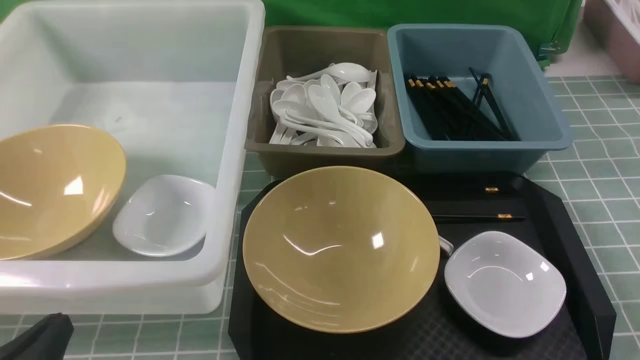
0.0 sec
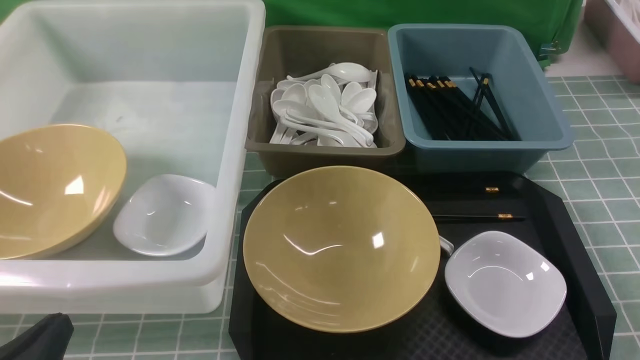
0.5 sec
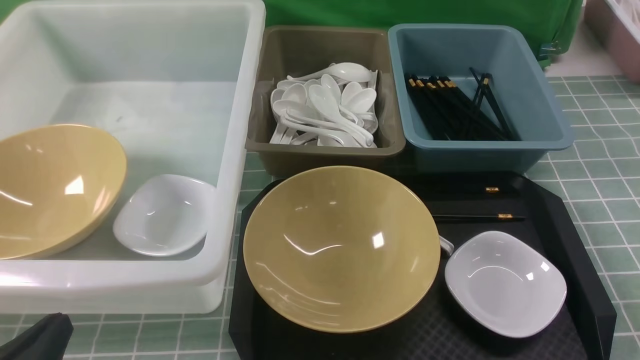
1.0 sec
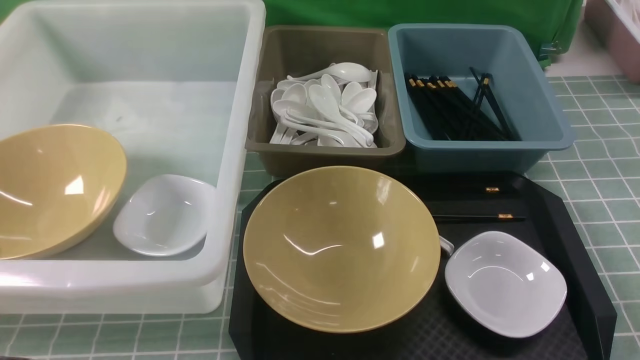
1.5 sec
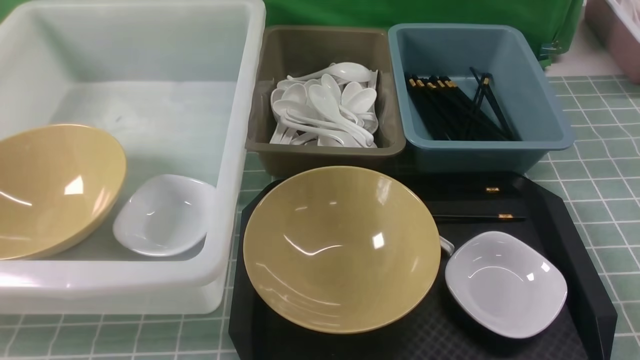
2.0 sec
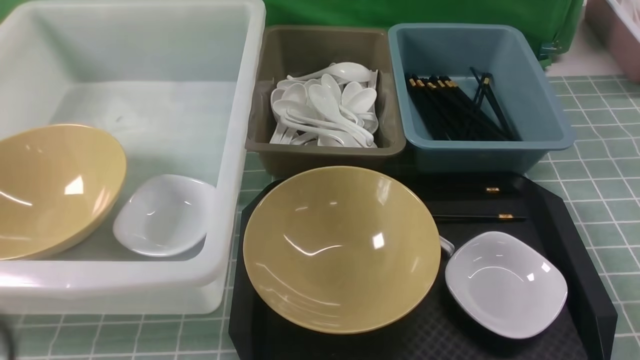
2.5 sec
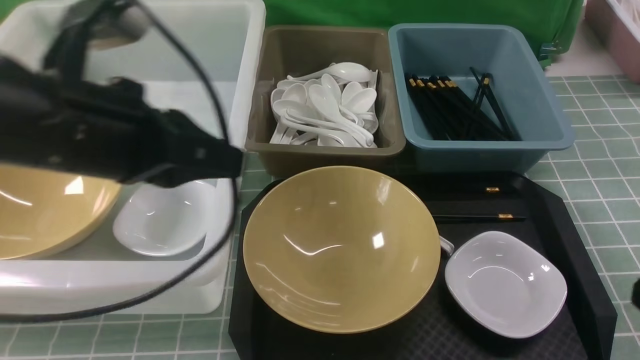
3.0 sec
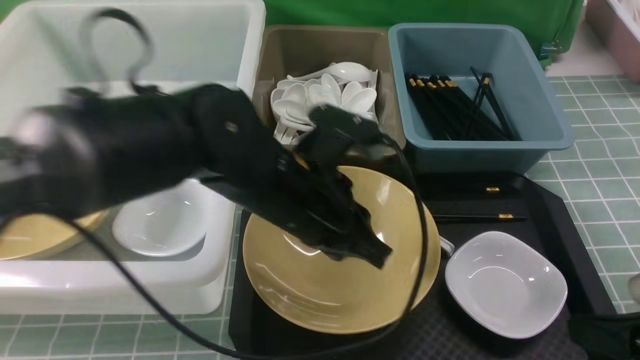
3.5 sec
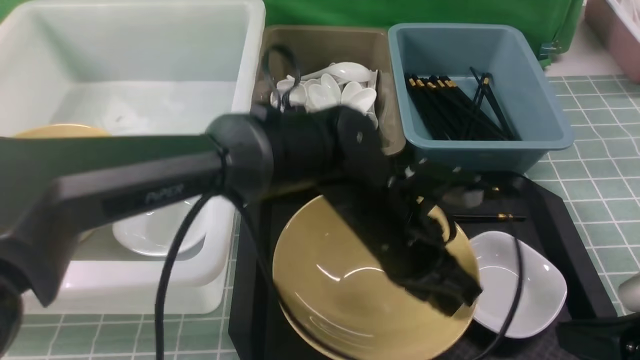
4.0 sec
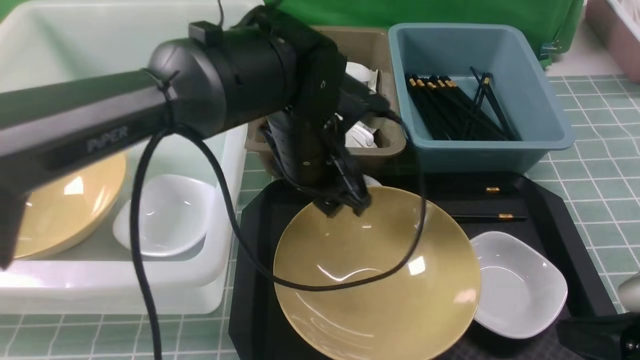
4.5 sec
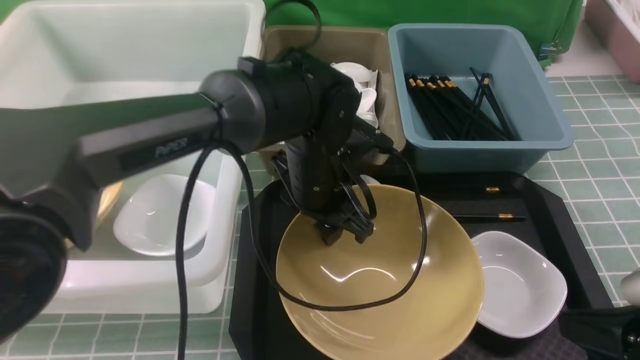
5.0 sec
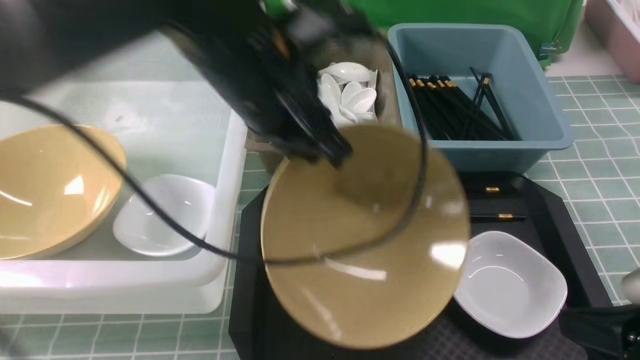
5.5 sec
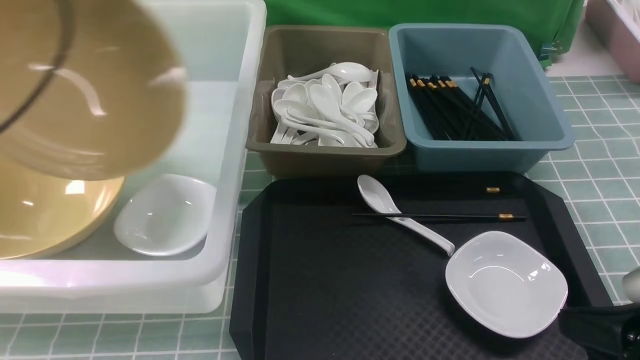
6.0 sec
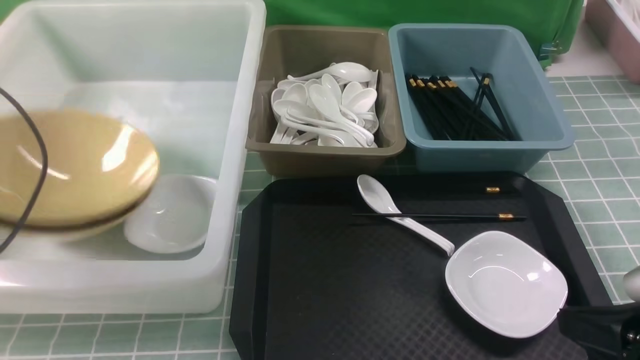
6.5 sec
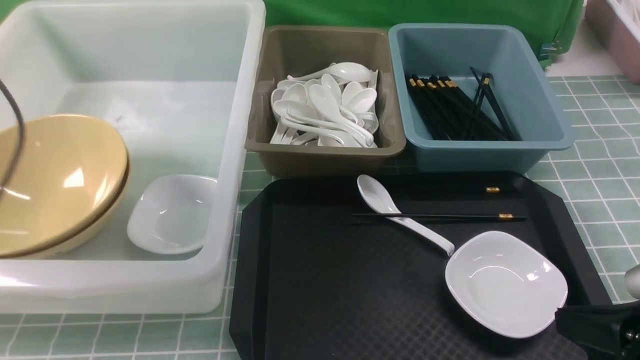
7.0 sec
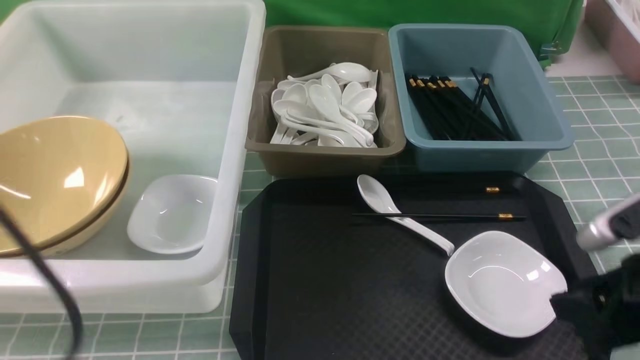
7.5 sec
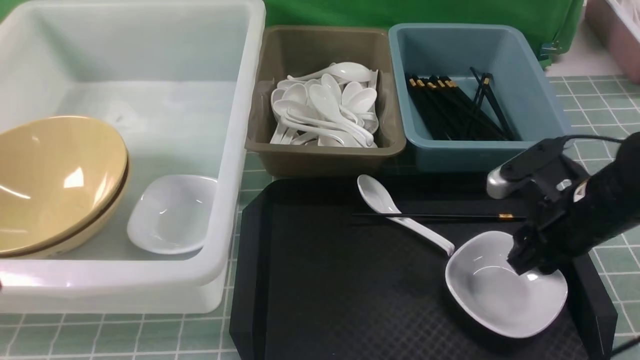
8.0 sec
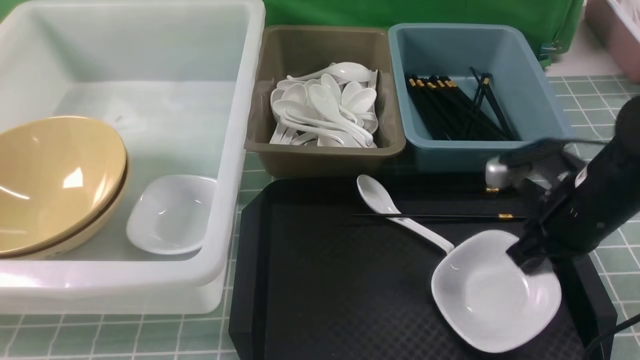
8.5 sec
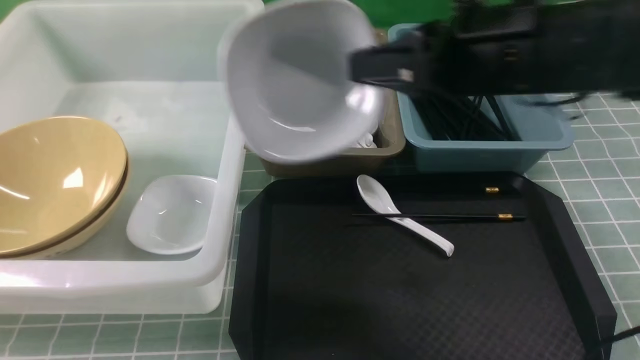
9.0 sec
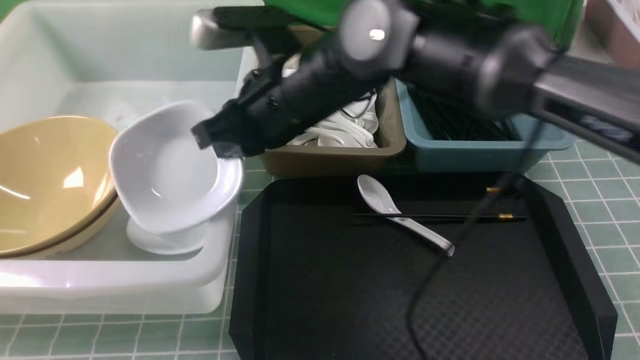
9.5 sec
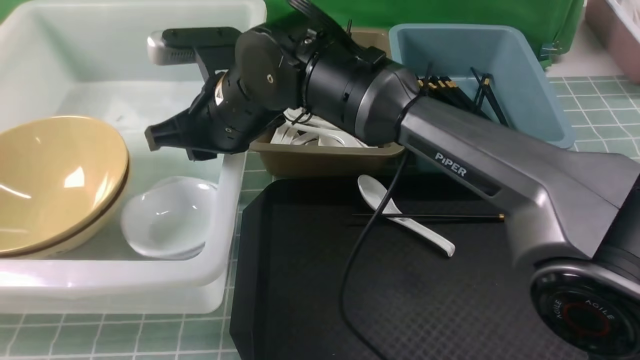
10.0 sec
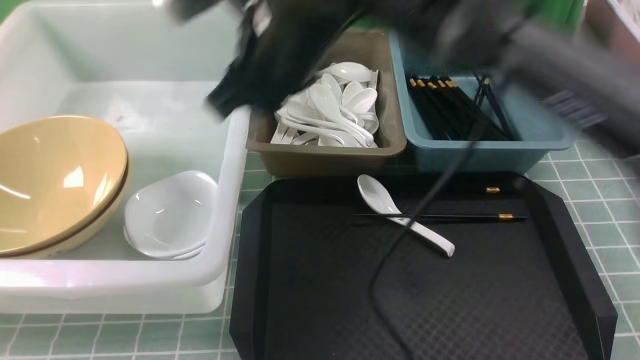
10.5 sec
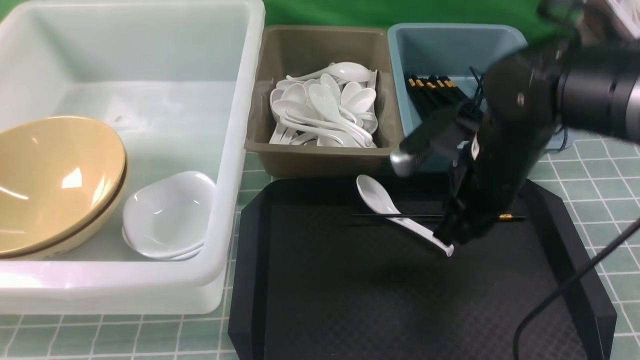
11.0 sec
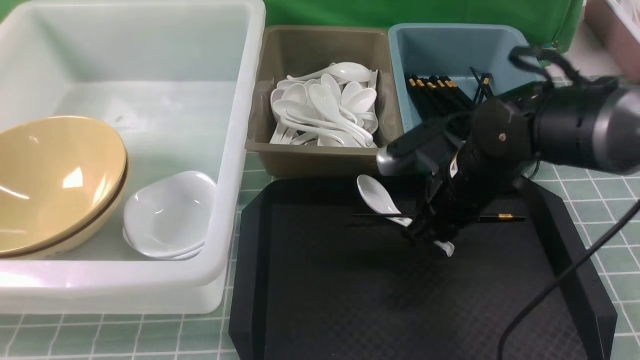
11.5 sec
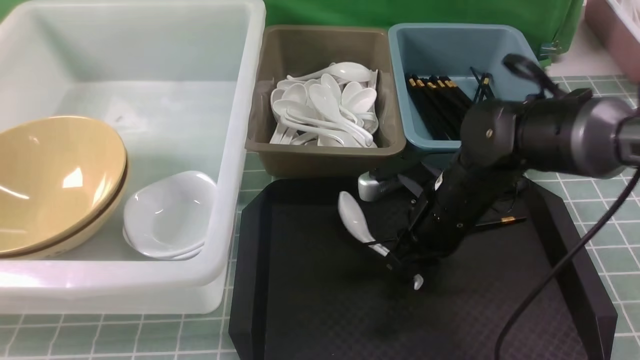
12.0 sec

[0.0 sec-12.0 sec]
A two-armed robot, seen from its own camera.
Task of the whole recording: on blue table put chopsticks spoon bowls plates into blue grey white boxes.
Step, 0.0 sec to 5.0 sec: use the left arm to grab the yellow noodle bowl on the left.
Step, 5.5 sec to 7.0 sec: use the left arm to put the noodle bowl into the large storage box on the left.
Step, 7.5 sec to 8.5 sec: use the right arm to grab the plate.
Step, 9.0 sec to 10.5 sec: use the right arm to put the plate into the large storage box on the left.
0.0 sec to 2.0 sec: The left gripper travels upward by some 15 cm.
2.0 sec to 4.0 sec: The right gripper is displaced forward and downward by some 15 cm. The left gripper shifts approximately 40 cm to the right and forward.
4.0 sec to 6.0 sec: The left gripper shifts approximately 40 cm to the left and upward, and opens and closes again.
6.0 sec to 8.0 sec: The right gripper goes some 15 cm forward, and opens its fingers, while the left gripper moves backward and downward, about 25 cm, and opens, then closes once more.
8.0 sec to 10.0 sec: The right gripper shifts approximately 30 cm to the left, and closes up.
10.0 sec to 12.0 sec: The right gripper travels to the right and downward by roughly 20 cm.

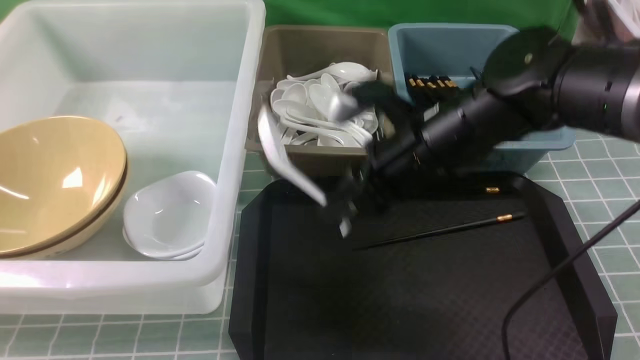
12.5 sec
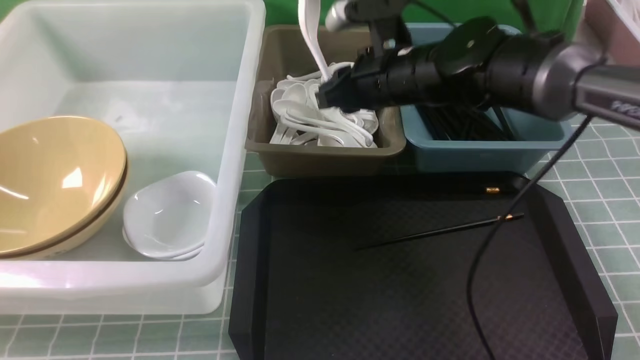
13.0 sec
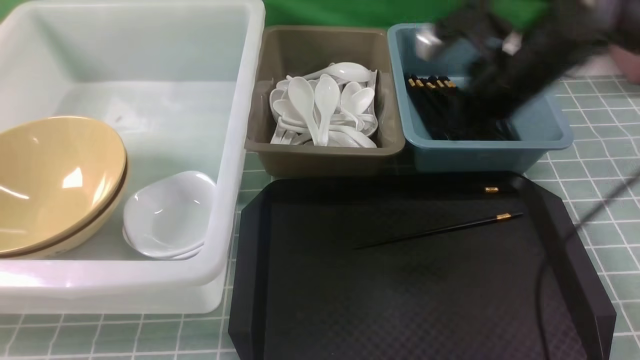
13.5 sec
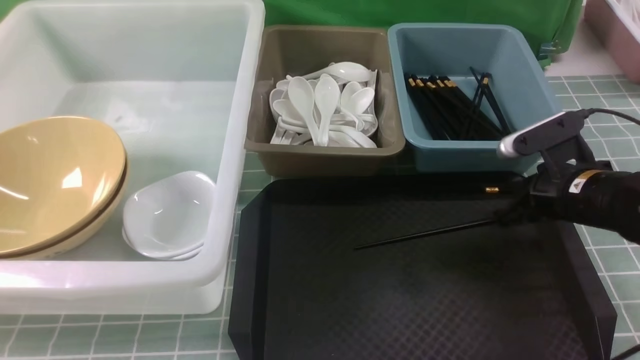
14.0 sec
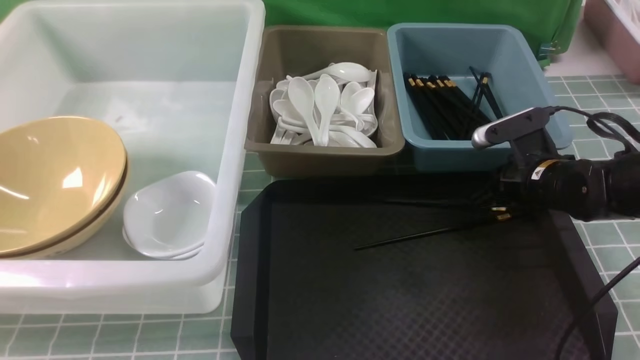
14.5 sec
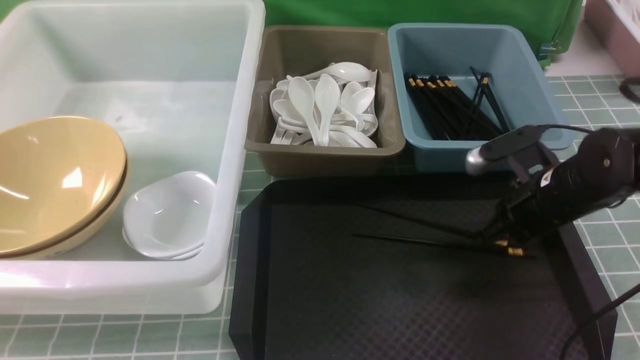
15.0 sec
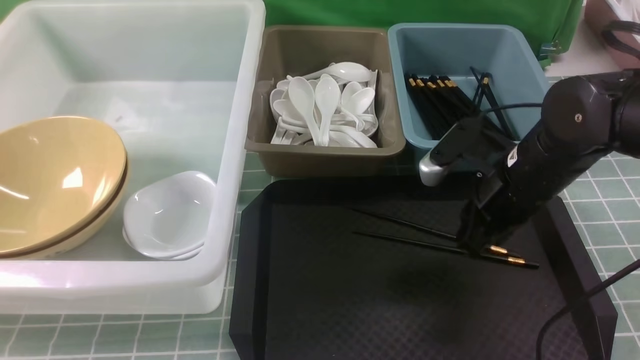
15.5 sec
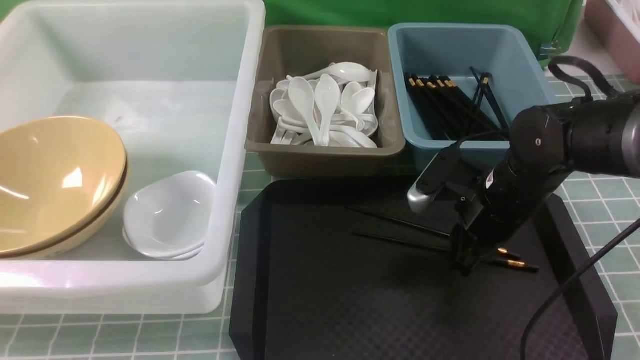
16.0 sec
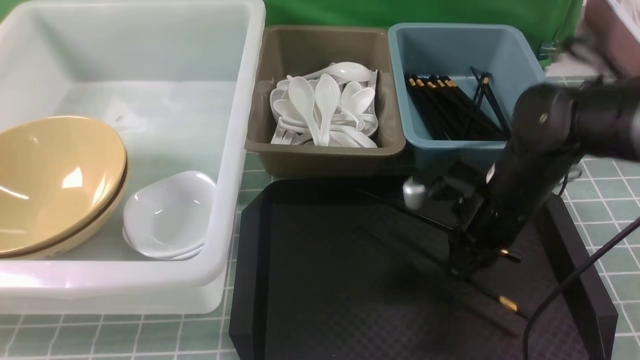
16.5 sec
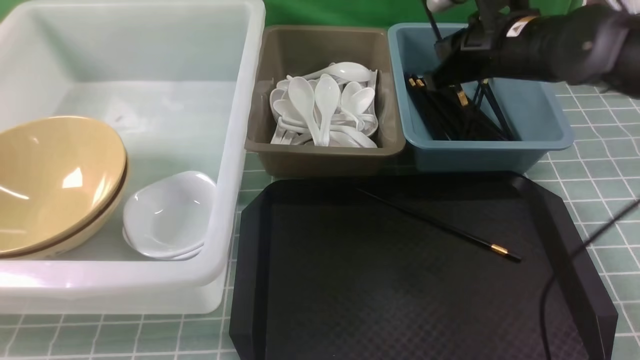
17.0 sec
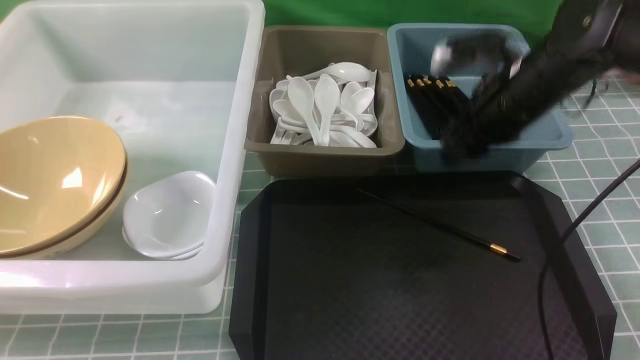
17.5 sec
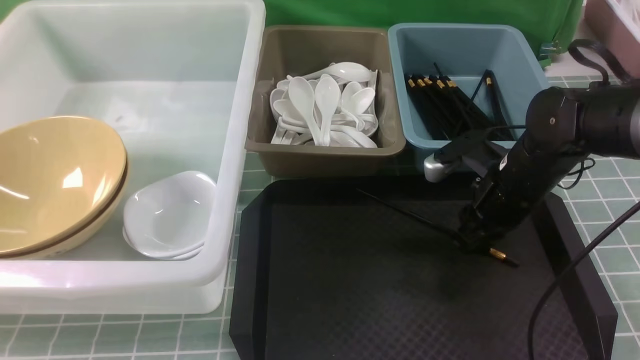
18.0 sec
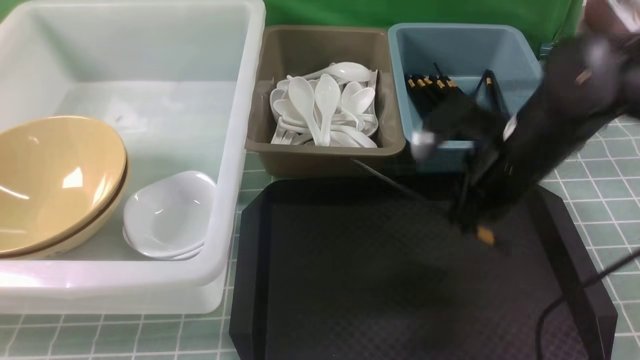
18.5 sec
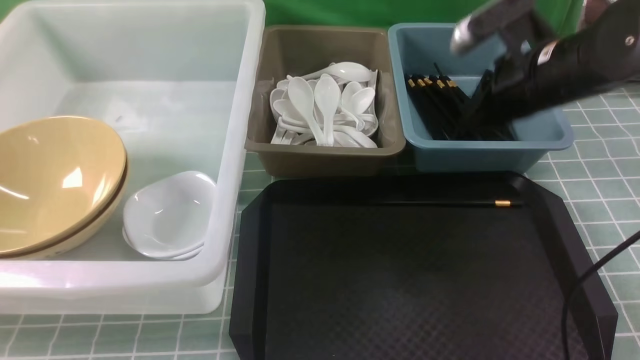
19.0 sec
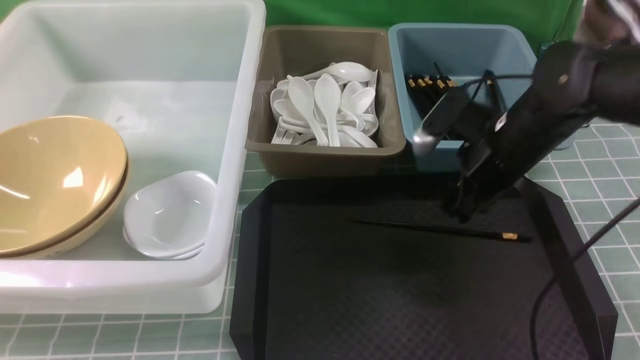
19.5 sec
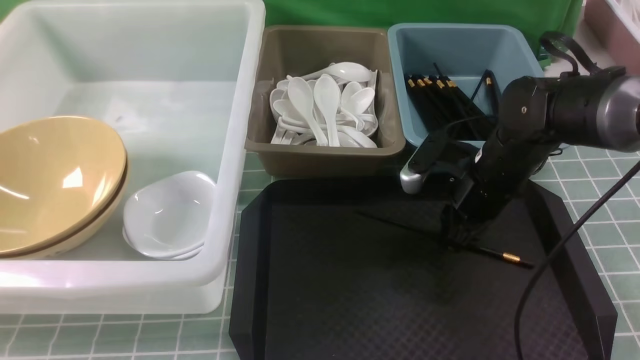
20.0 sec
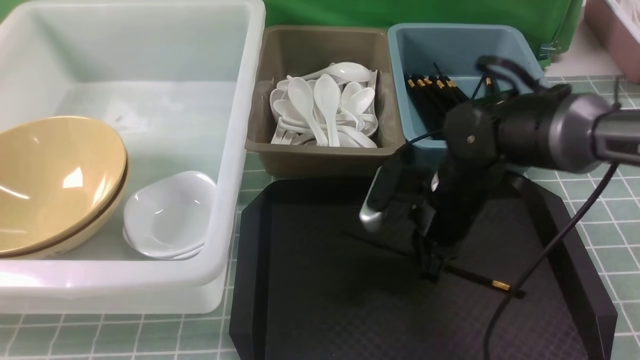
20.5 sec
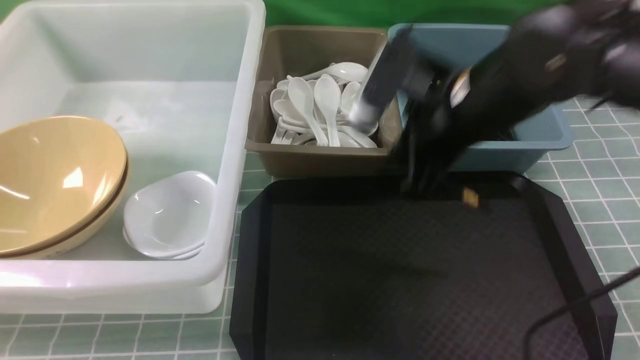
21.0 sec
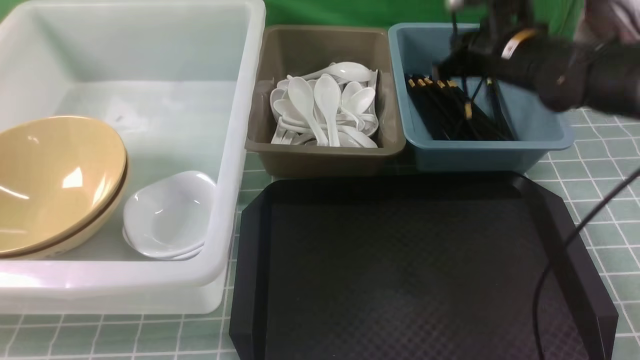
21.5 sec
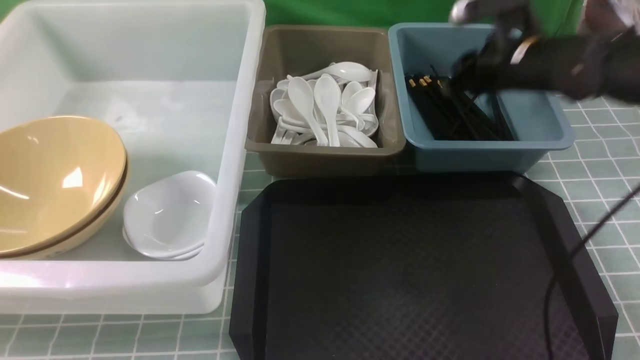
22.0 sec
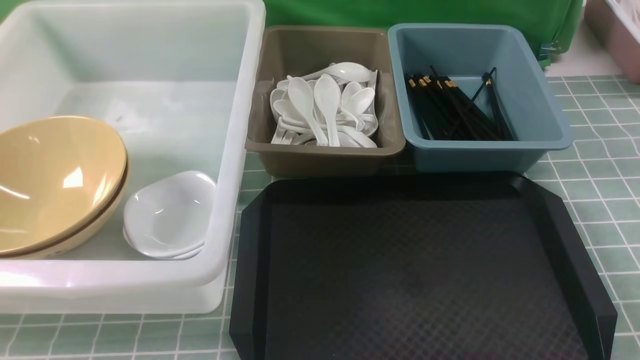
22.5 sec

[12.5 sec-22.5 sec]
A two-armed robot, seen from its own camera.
Task of the whole recording: on blue table put chopsticks spoon bowls plates into blue grey white boxes.
Step, 13.5 sec to 16.0 sec: use the right arm to grab a chopstick.
Step, 17.5 sec to 21.0 sec: use the right arm to grab a chopstick.
Step, 21.5 sec to 22.0 sec: use the right arm to put a chopstick into the small storage box on the right.
12.5 sec to 14.5 sec: The right gripper is displaced to the right and downward by roughly 20 cm, and closes its fingers.
14.5 sec to 16.5 sec: The right gripper moves upward and to the left, roughly 10 cm, and opens and closes again.
16.5 sec to 18.5 sec: The right gripper moves up and down over some 10 cm, changing direction 2 times, and opens, then closes again.
18.5 sec to 20.5 sec: The right gripper moves downward and to the left, roughly 10 cm, and opens, then closes once more.
20.5 sec to 22.5 sec: The right gripper moves upward, backward and to the right, about 30 cm, and opens, then closes again.
